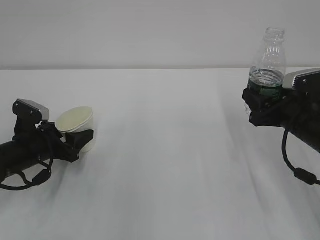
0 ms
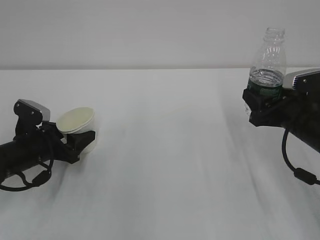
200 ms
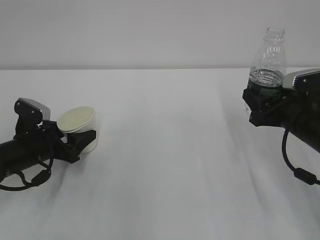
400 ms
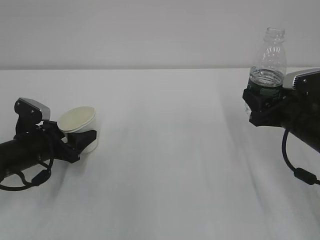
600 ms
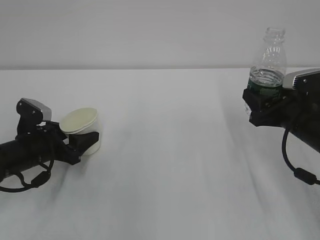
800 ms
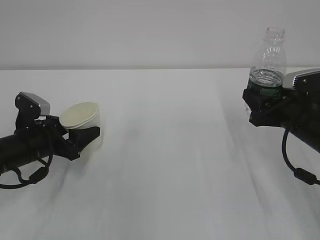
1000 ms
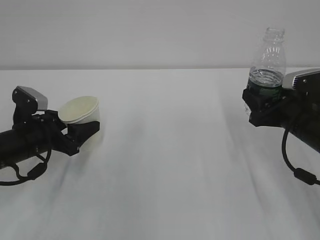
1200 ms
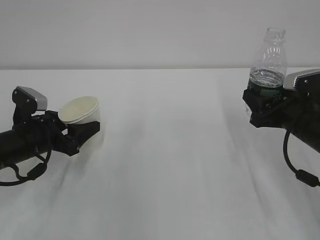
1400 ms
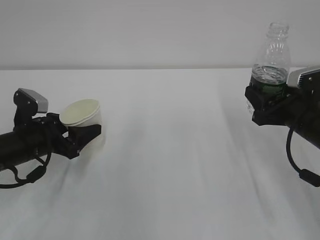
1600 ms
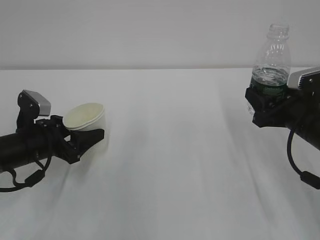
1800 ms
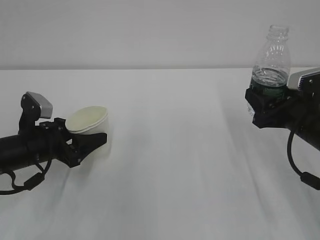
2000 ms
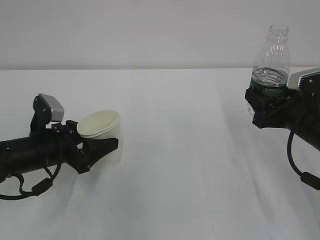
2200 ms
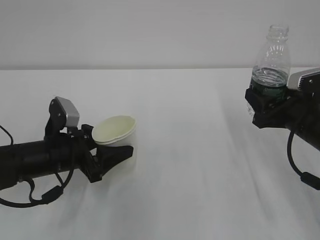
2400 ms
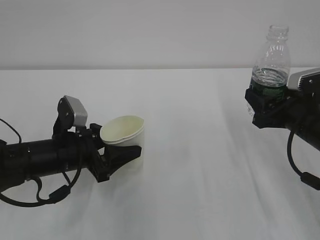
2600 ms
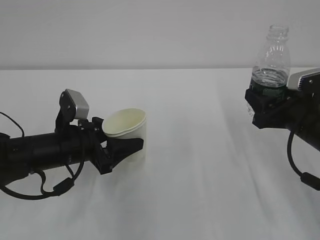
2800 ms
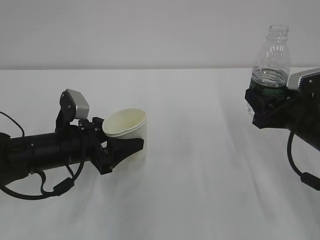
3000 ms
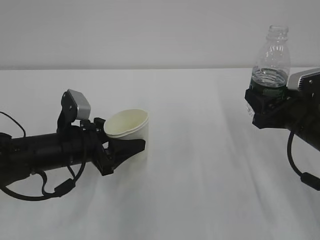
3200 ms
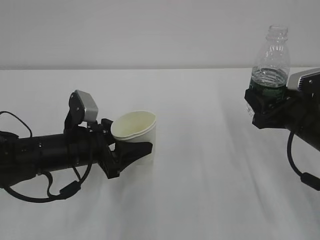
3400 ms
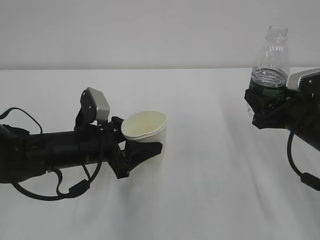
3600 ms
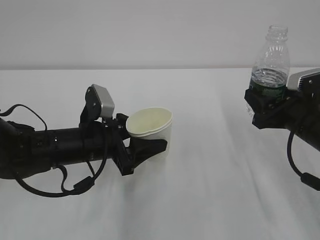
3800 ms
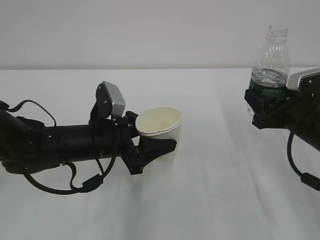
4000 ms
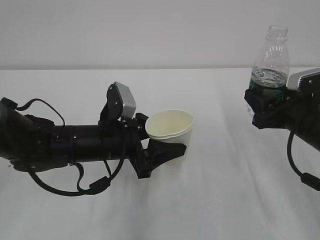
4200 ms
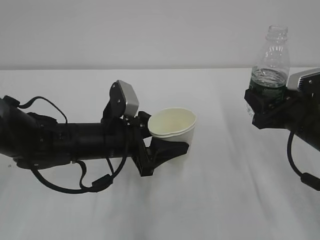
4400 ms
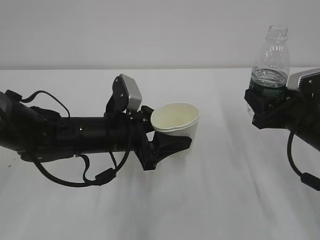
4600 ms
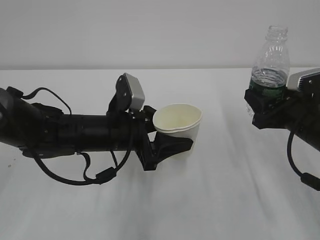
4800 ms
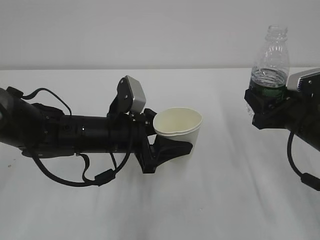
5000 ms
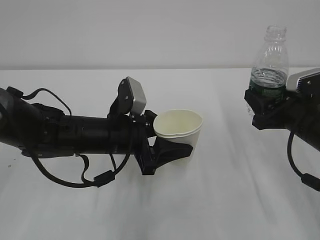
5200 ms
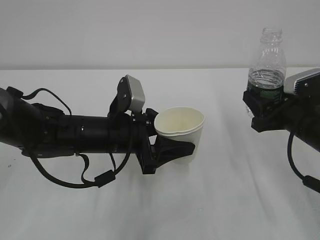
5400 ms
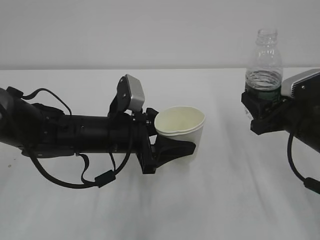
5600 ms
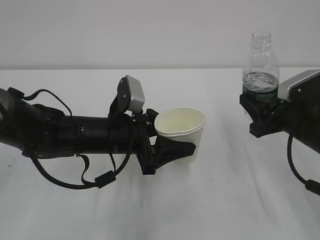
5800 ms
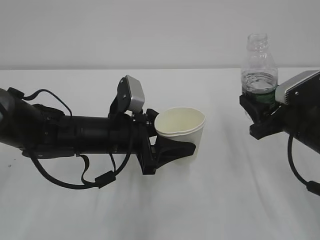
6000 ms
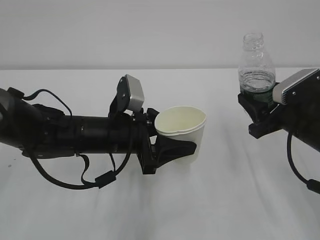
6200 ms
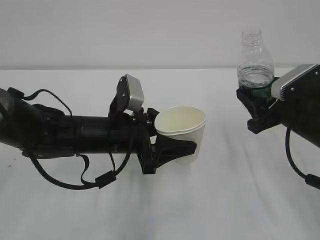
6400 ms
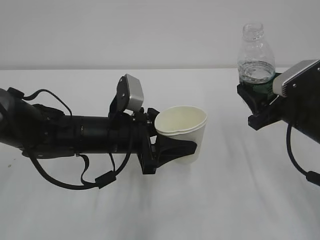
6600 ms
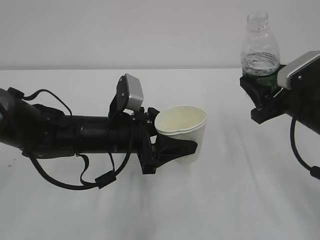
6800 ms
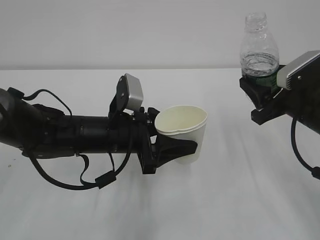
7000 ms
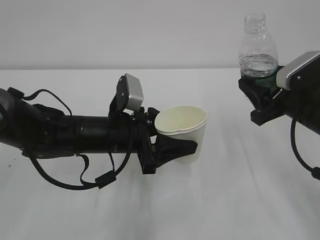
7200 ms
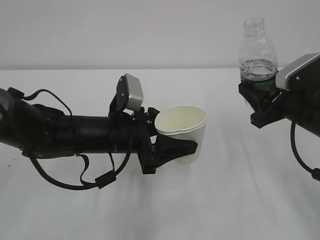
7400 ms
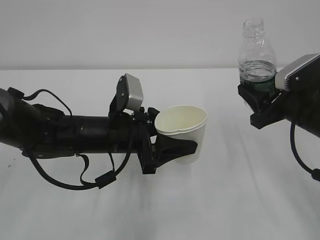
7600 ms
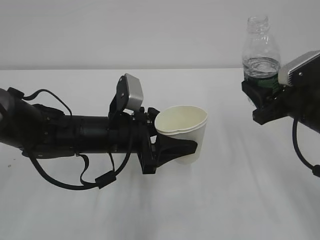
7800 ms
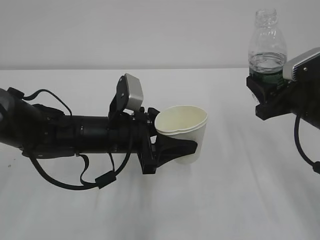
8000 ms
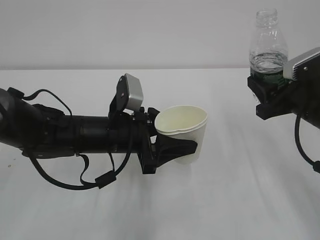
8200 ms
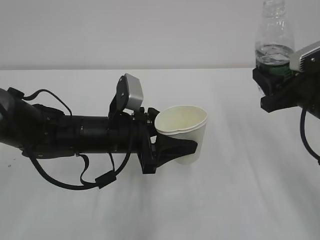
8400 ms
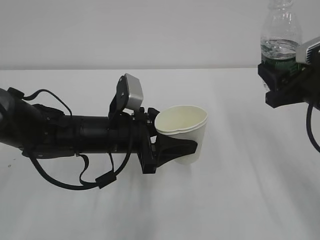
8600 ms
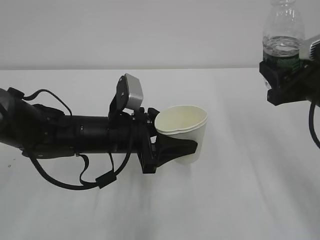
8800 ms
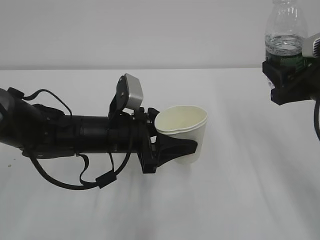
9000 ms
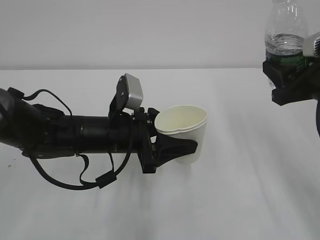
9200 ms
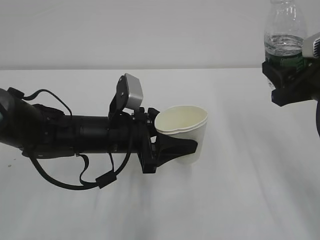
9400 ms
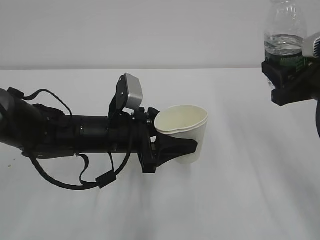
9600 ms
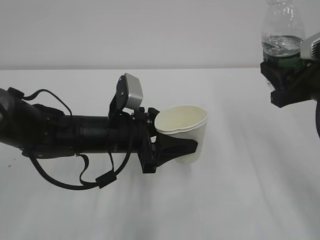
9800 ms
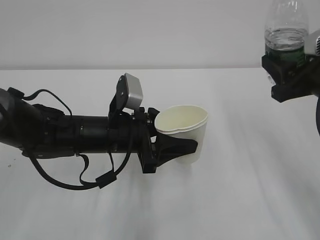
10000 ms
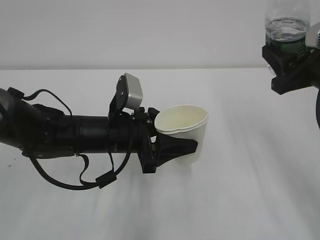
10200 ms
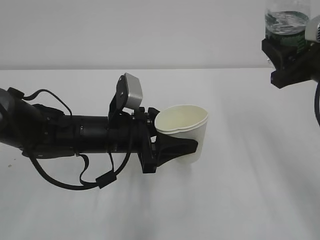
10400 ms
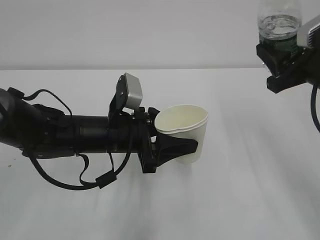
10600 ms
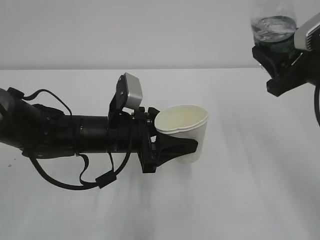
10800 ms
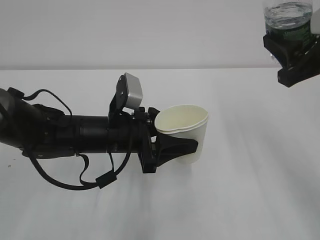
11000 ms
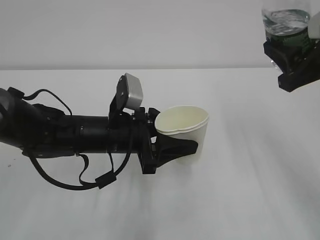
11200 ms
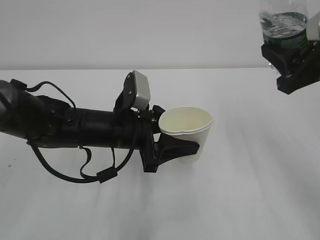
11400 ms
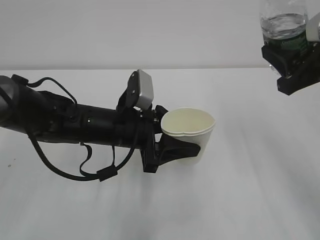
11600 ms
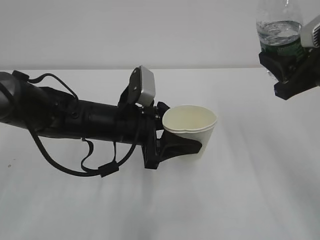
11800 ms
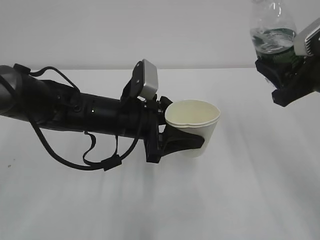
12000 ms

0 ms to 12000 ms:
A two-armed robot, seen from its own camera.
0 ms to 1600 ms: The grippers make only small movements.
1600 ms to 3000 ms: The left gripper heads to the right, covering roughly 5 cm.
3000 ms to 4400 ms: The left gripper travels to the right by approximately 5 cm.
4400 ms to 6000 ms: The grippers make only small movements.
6000 ms to 7600 ms: The grippers stay close to where they were, moving slightly.
7600 ms to 9000 ms: The right gripper travels upward by some 5 cm.
9000 ms to 10400 ms: There are only small adjustments of the grippers.

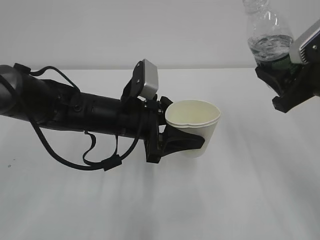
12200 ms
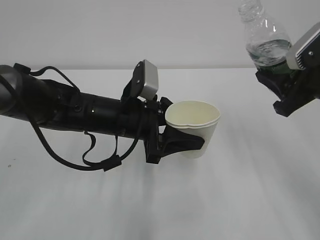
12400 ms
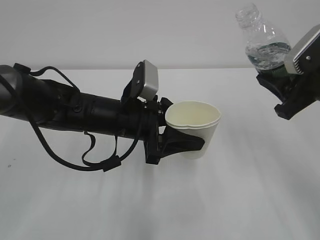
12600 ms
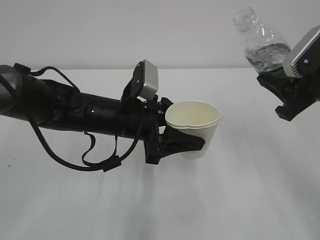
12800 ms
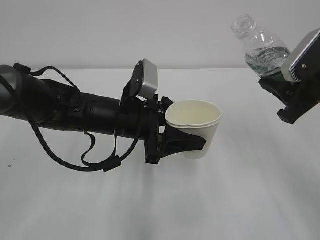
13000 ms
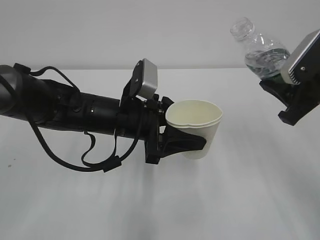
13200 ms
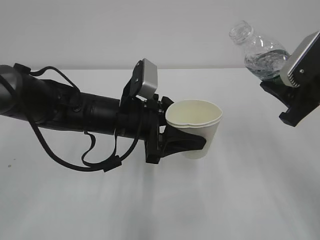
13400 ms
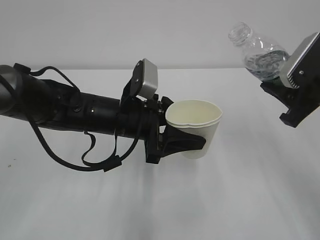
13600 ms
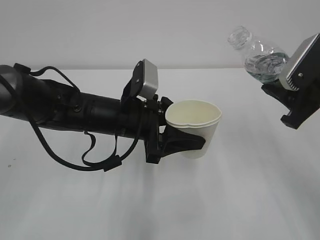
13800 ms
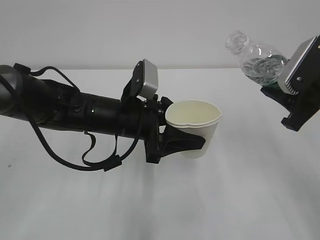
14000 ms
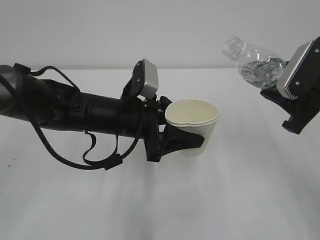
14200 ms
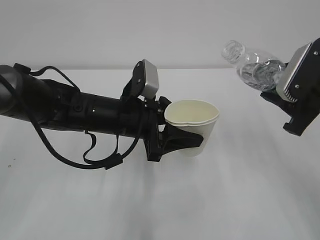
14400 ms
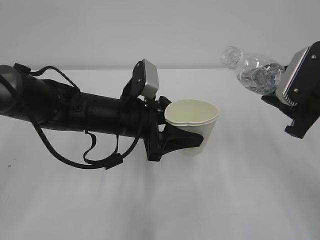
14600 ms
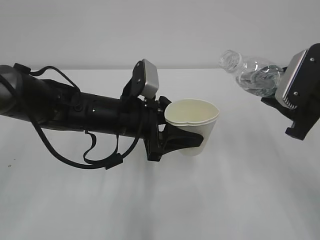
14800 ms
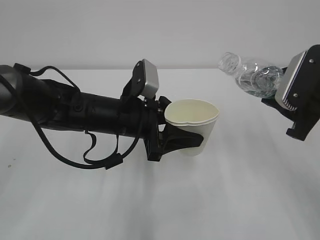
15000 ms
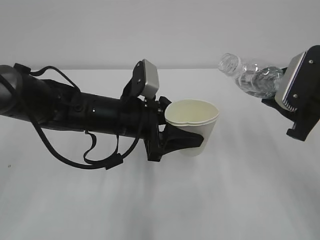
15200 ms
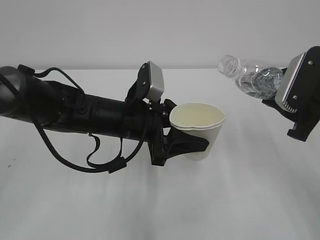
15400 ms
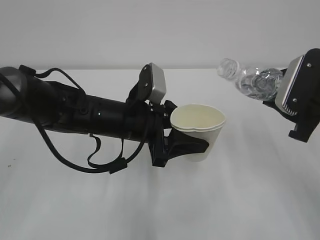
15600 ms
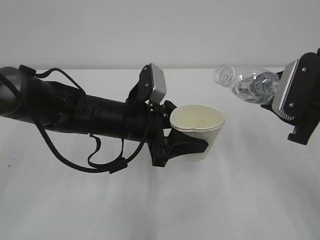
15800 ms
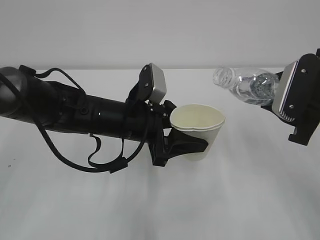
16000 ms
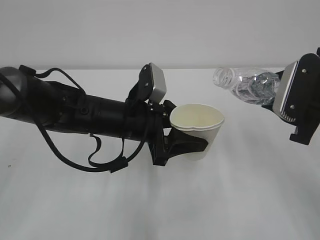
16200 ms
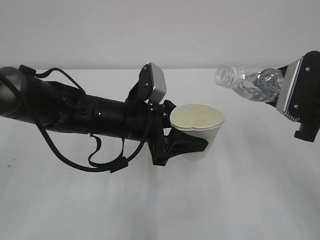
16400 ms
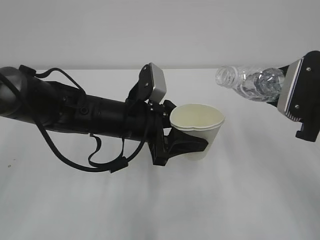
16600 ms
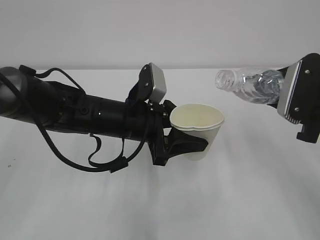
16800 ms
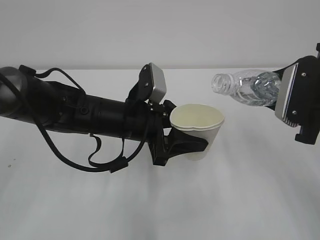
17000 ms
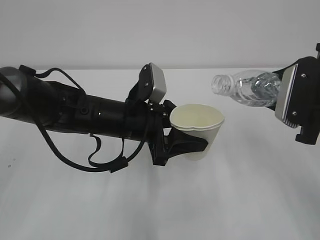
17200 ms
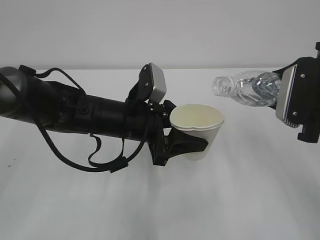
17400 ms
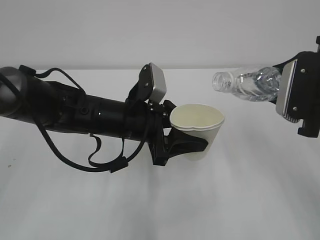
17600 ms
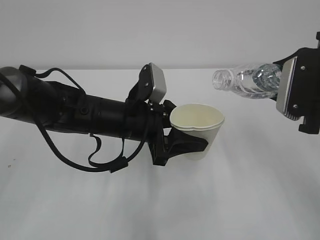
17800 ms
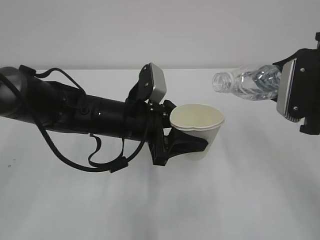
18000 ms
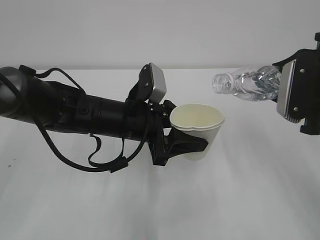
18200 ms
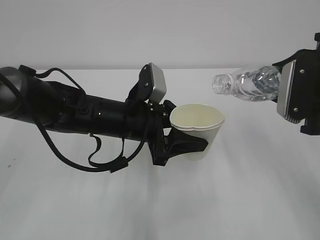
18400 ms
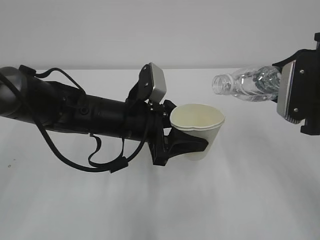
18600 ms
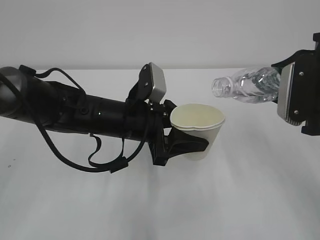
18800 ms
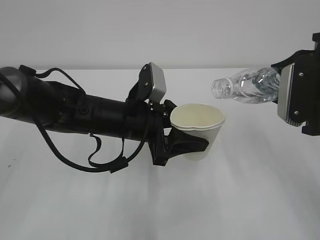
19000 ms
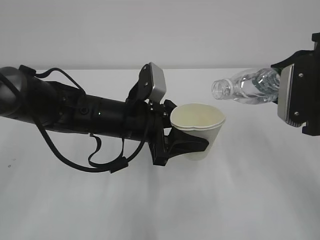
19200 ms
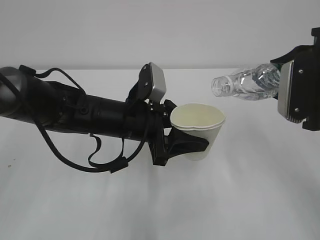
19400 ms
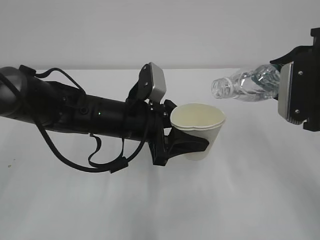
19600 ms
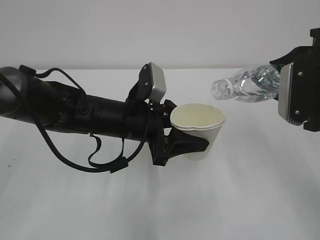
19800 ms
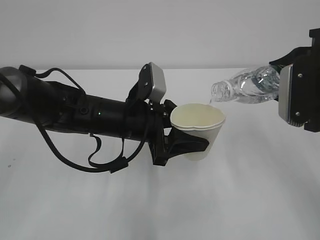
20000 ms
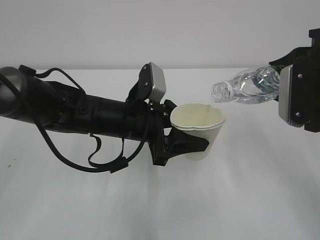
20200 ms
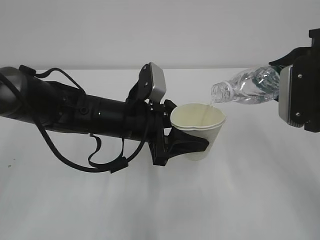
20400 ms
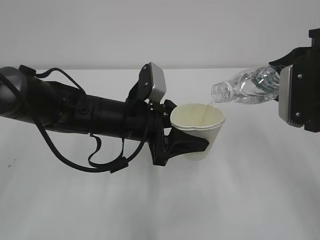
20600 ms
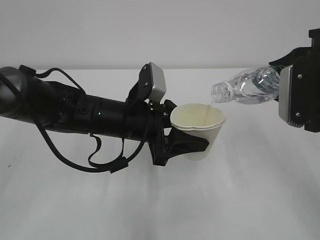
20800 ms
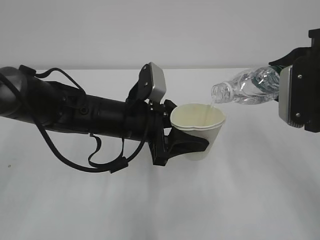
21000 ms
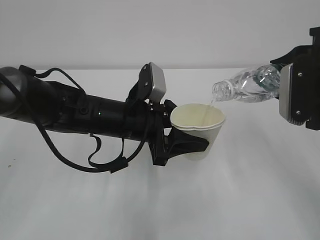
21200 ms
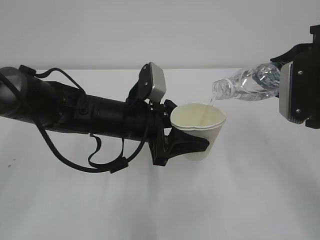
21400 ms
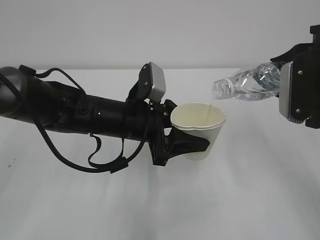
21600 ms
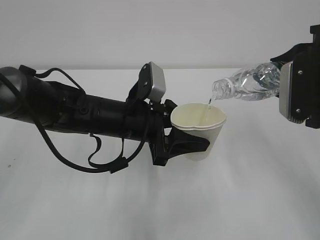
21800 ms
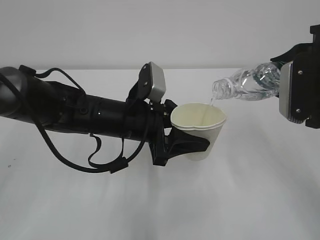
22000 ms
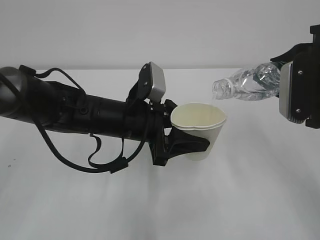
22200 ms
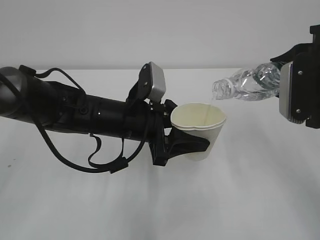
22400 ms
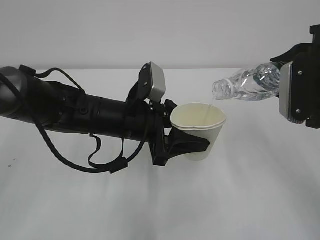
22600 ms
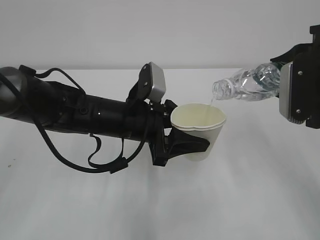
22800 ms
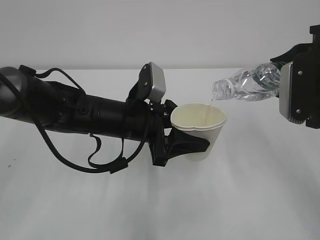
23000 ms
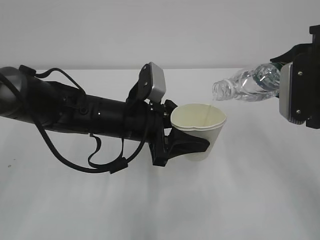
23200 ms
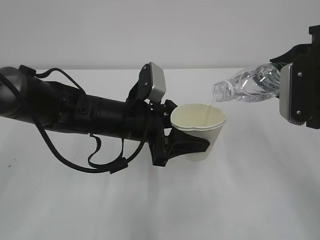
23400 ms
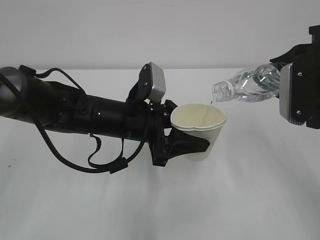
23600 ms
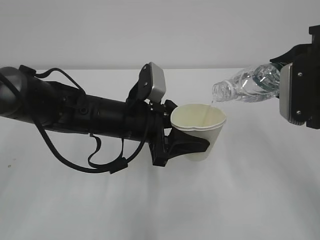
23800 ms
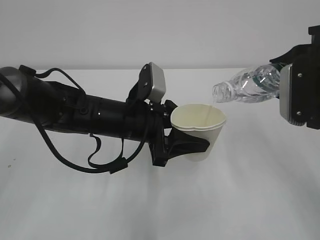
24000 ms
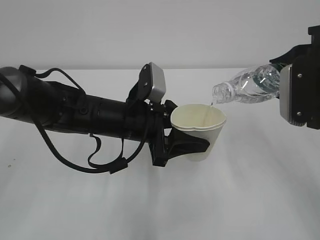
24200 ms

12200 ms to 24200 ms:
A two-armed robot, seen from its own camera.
12200 ms to 13800 ms: There are only small adjustments of the grippers.
13800 ms to 15200 ms: The grippers stay close to where they were, moving slightly.
15200 ms to 18200 ms: The grippers stay close to where they were, moving slightly.
18200 ms to 19800 ms: The grippers stay close to where they were, moving slightly.
19800 ms to 24200 ms: The two grippers keep their place.
